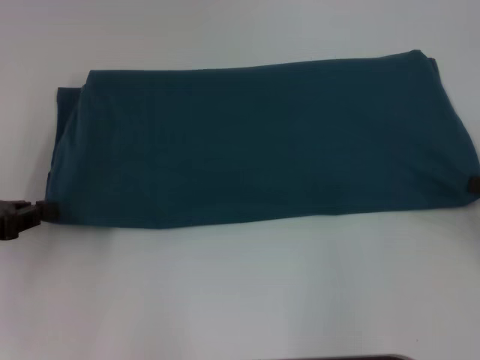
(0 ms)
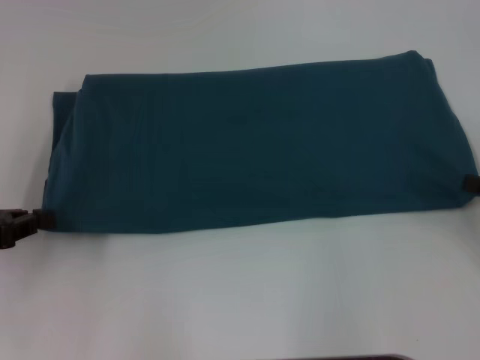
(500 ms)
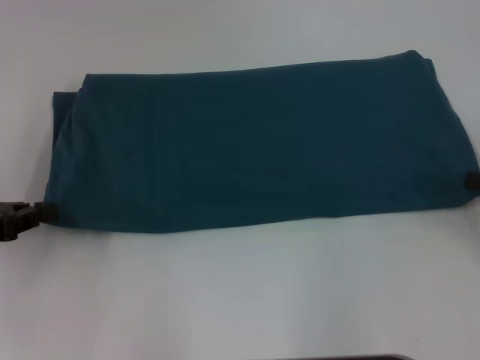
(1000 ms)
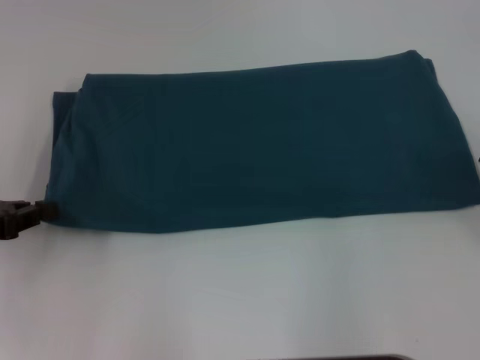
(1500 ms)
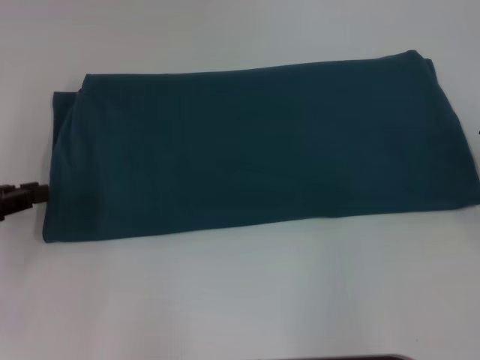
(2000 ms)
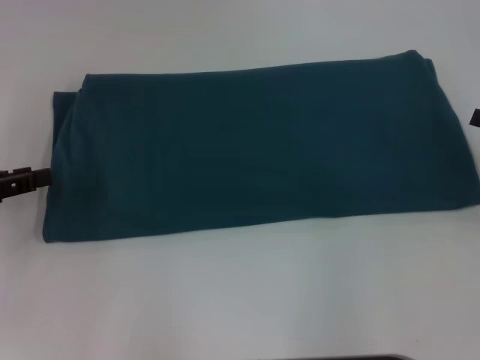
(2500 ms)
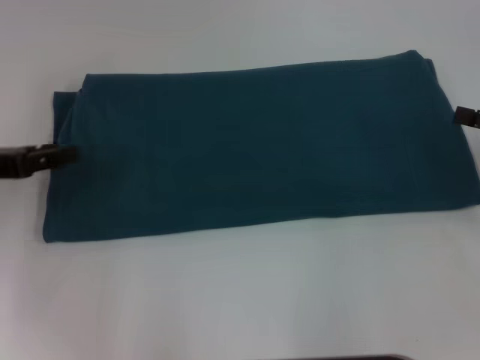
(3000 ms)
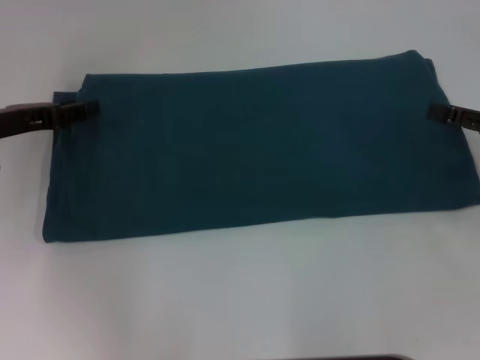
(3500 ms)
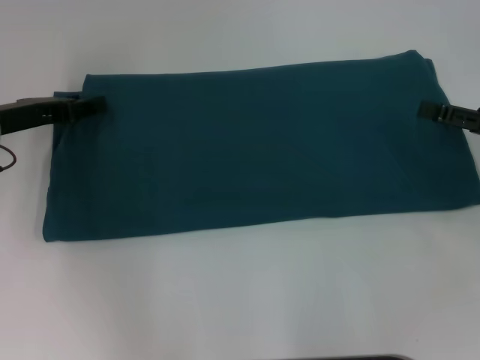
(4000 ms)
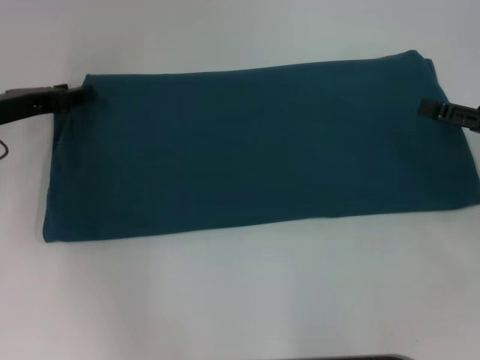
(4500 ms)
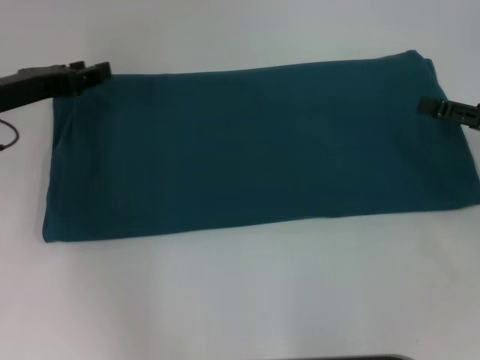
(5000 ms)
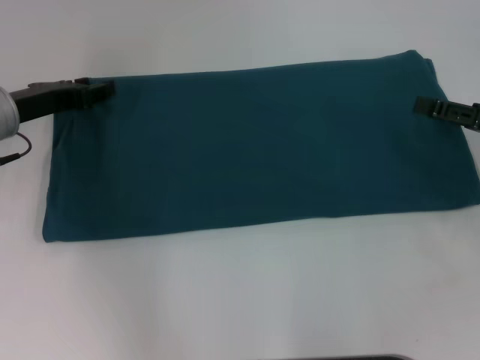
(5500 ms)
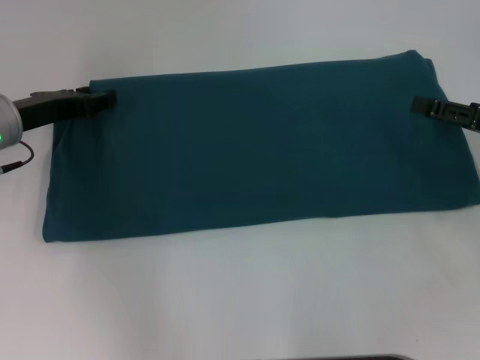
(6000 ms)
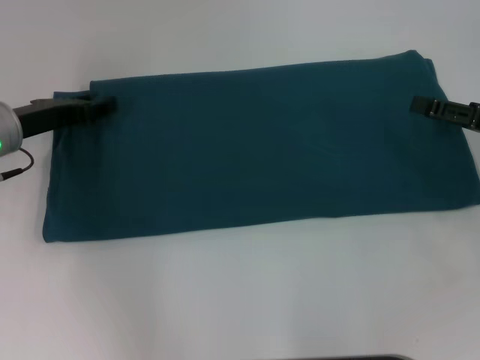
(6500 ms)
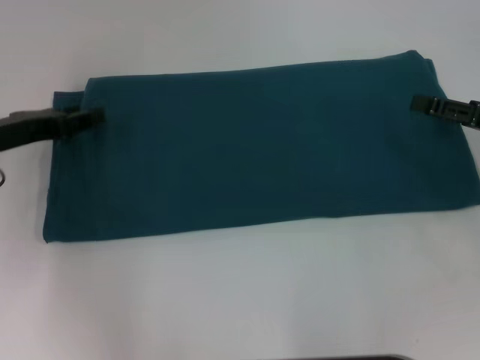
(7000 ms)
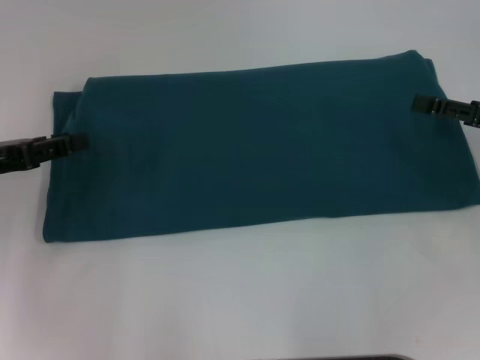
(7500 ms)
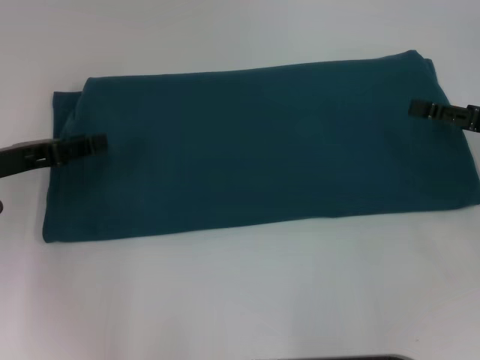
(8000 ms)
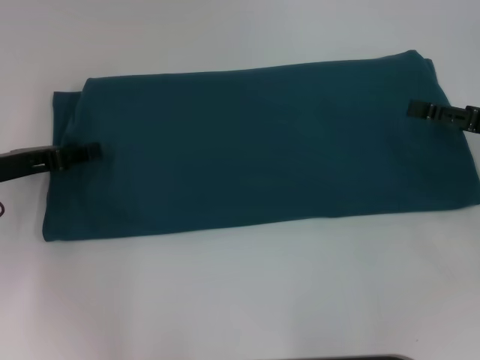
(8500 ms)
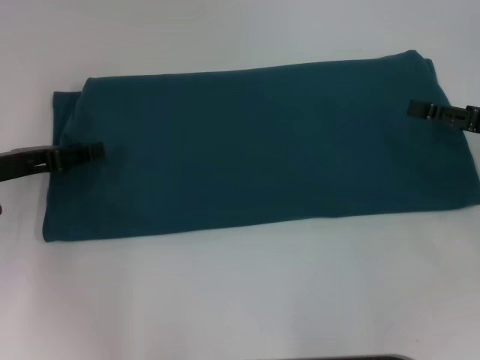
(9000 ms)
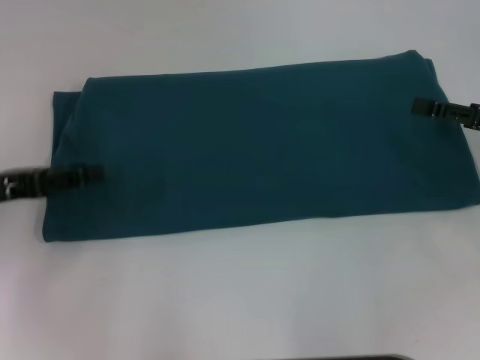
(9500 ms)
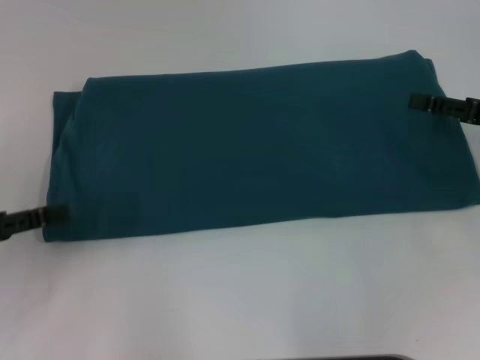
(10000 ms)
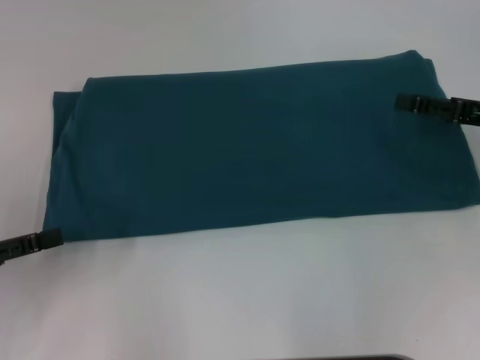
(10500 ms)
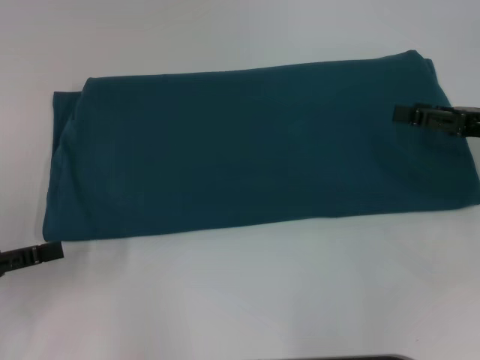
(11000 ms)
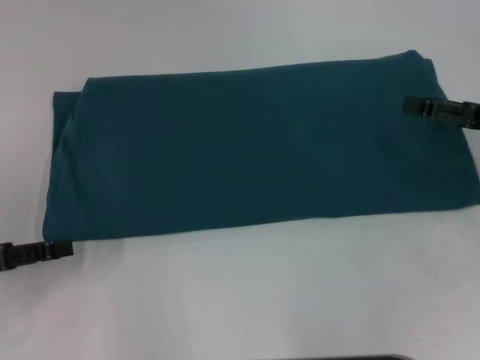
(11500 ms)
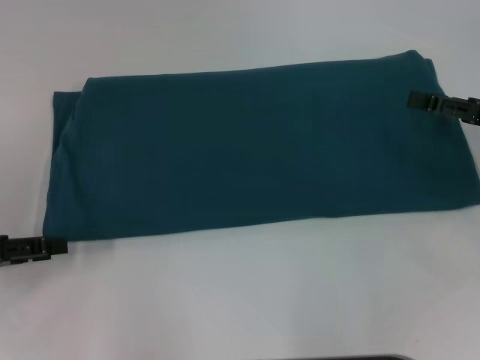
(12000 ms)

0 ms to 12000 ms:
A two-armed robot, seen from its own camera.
Step, 0 ms to 2000 ms: Pull the clothes with your left hand.
Step, 0 ms to 2000 ms: Pull the clothes with your right hand.
0 ms to 2000 ms: The right gripper opens.
2000 ms to 4000 ms: The left gripper goes roughly 15 cm forward and to the right, and opens up.
4000 ms to 6000 ms: The grippers stay close to where they were, moving slightly.
6000 ms to 8000 ms: The left gripper heads backward, covering about 5 cm.
8000 ms to 10000 ms: The left gripper goes about 5 cm backward.
10000 ms to 12000 ms: The grippers stay close to where they were, moving slightly.

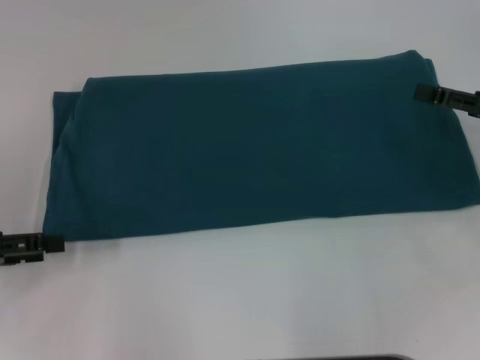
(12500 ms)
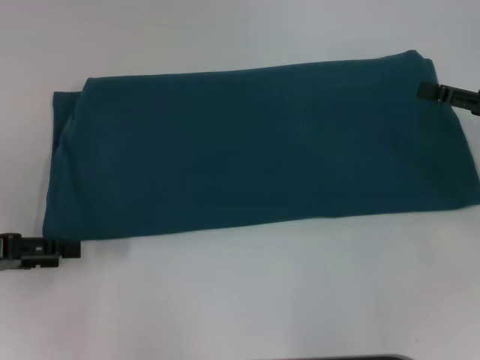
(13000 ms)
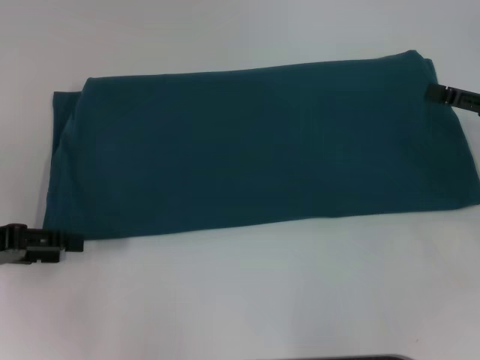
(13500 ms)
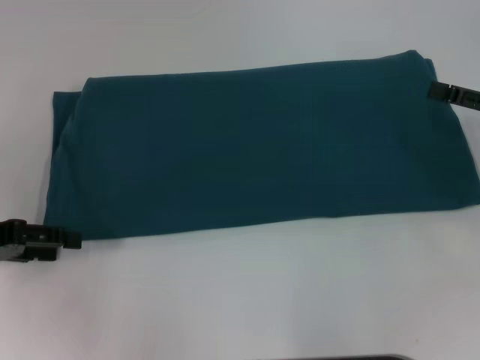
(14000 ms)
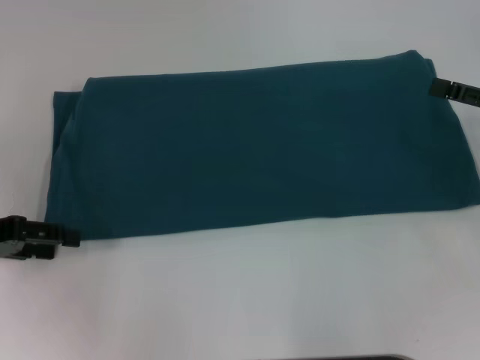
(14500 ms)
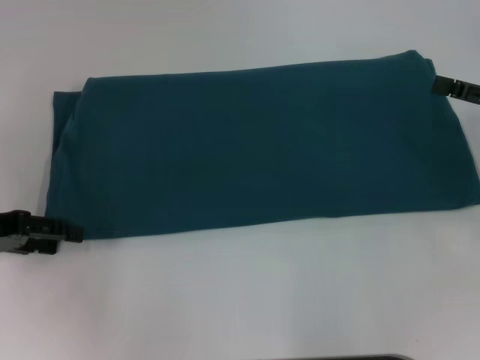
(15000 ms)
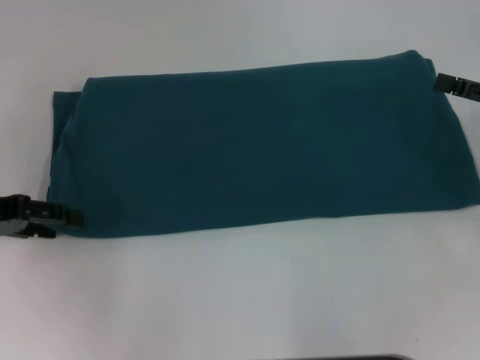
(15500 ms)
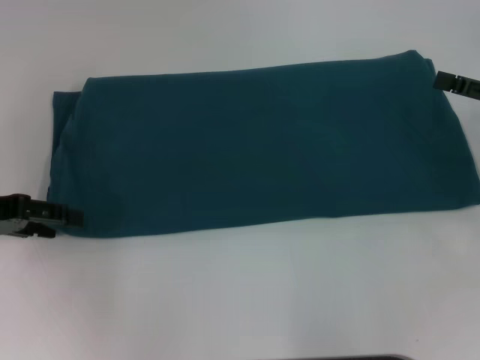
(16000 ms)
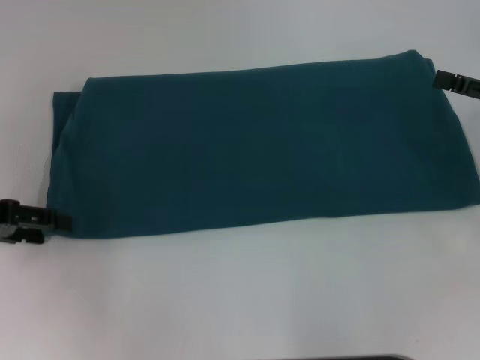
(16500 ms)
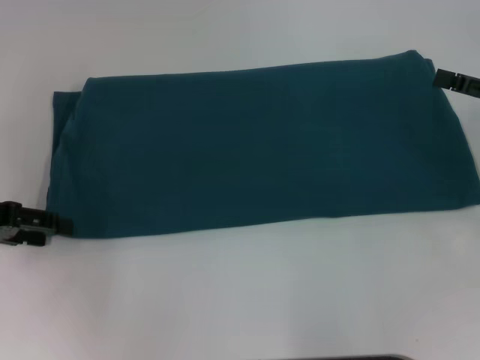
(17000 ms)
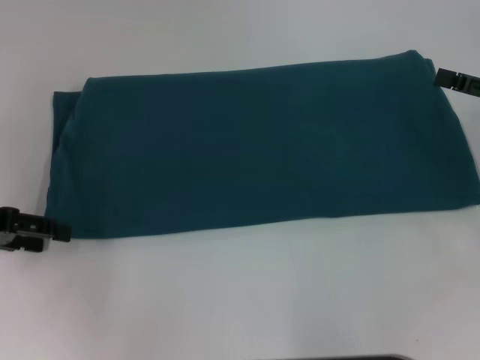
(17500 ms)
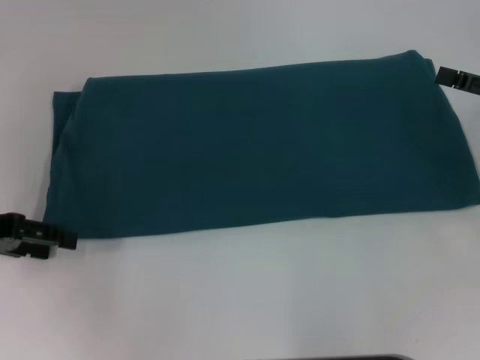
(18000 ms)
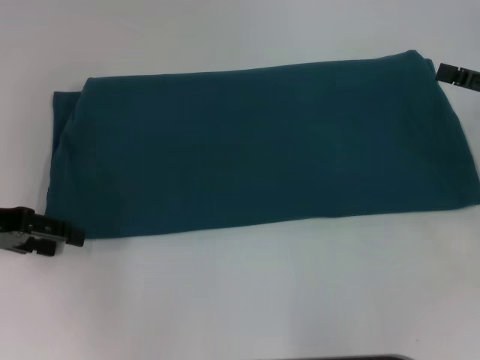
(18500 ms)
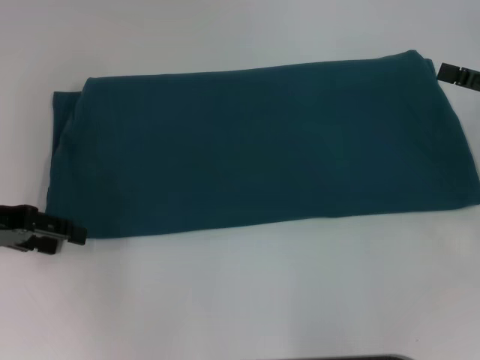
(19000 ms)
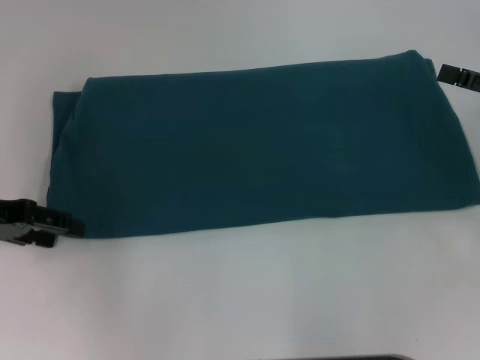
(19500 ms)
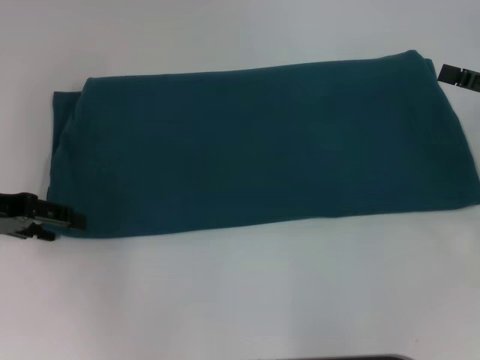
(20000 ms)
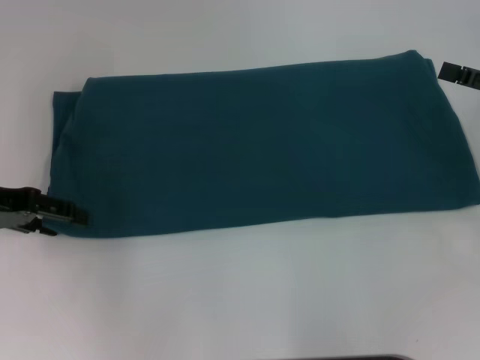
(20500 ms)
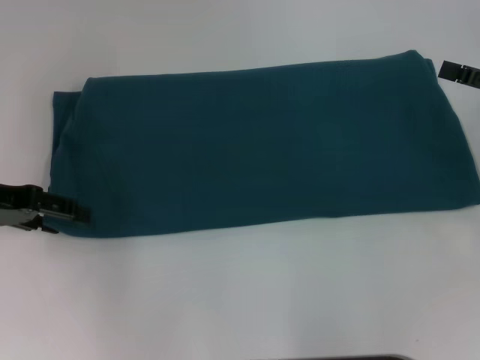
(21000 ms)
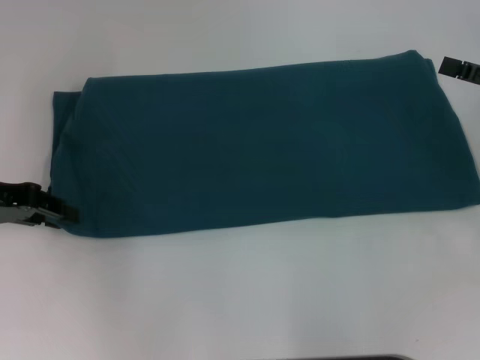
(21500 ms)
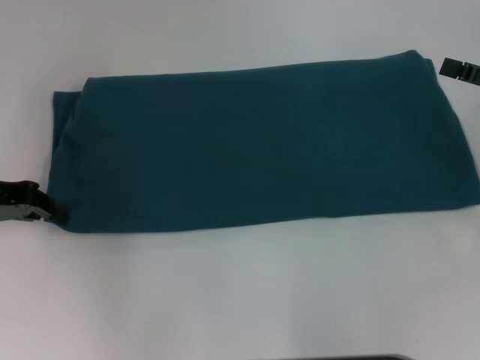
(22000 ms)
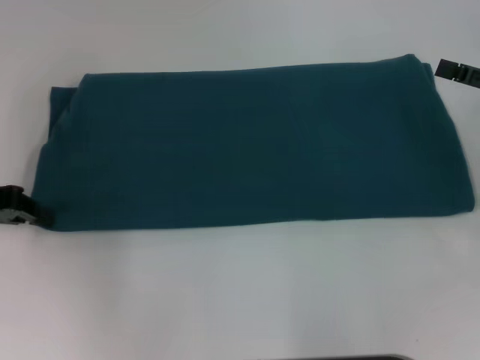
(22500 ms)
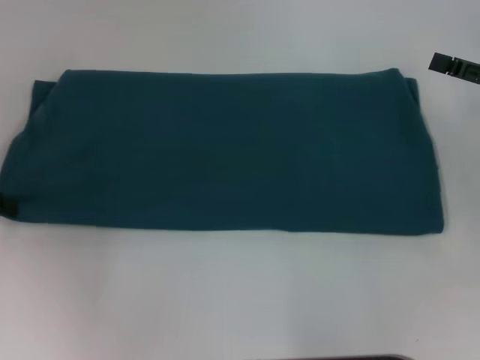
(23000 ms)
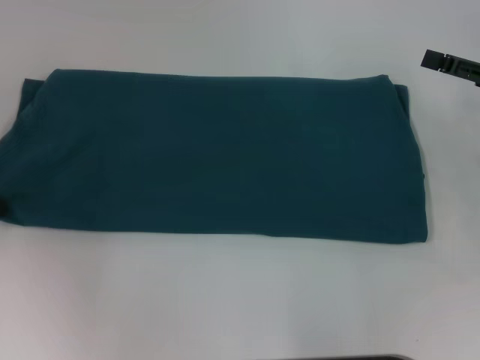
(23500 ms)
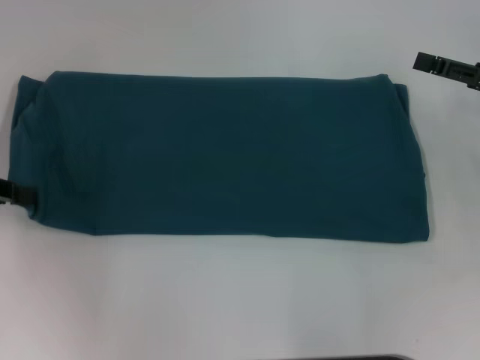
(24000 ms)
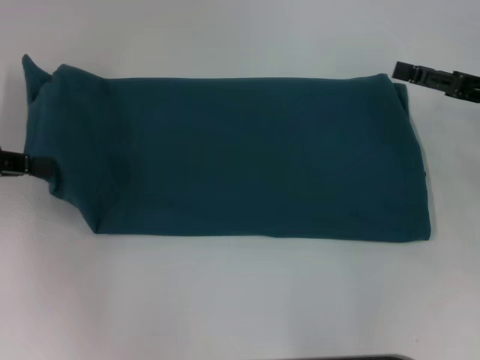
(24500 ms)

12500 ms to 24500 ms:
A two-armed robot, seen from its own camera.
12500 ms to 14500 ms: There are only small adjustments of the grippers.
14500 ms to 20500 ms: There are only small adjustments of the grippers.
20500 ms to 22500 ms: The left gripper closes up.

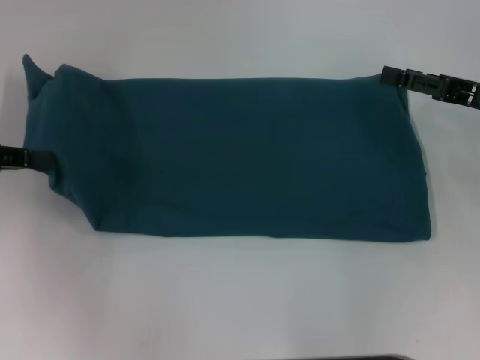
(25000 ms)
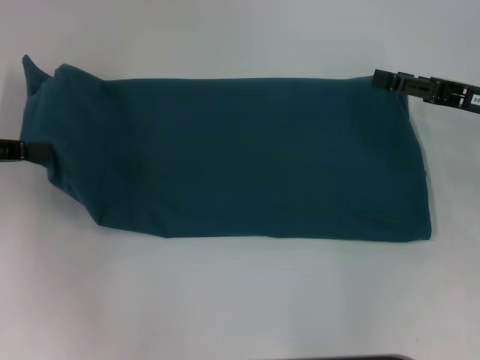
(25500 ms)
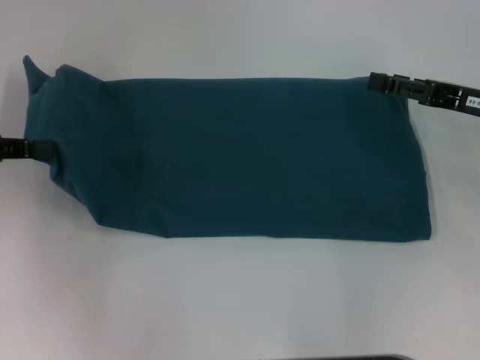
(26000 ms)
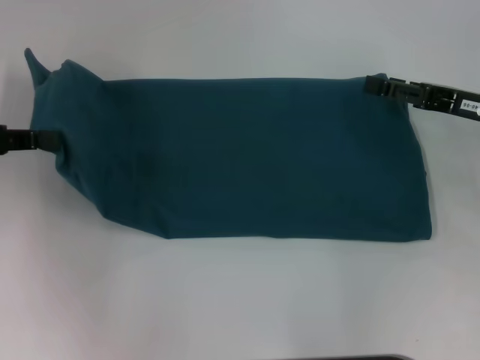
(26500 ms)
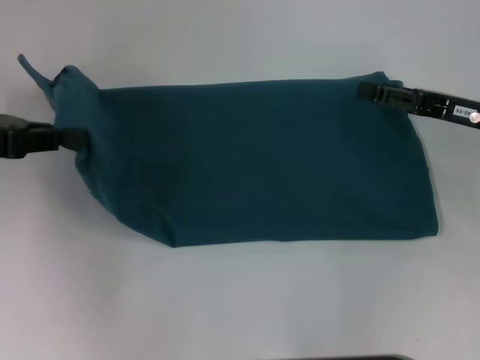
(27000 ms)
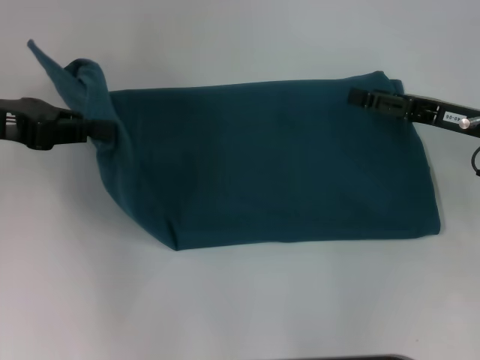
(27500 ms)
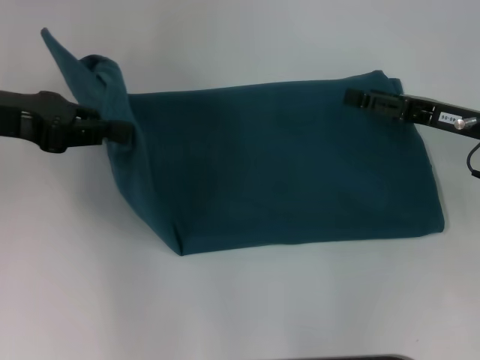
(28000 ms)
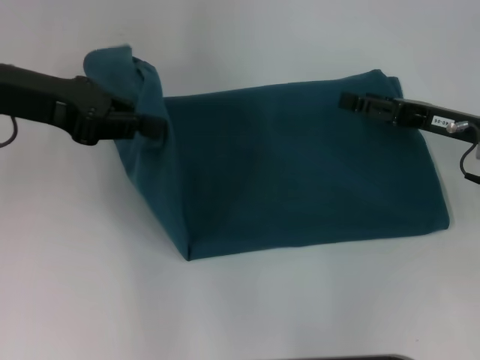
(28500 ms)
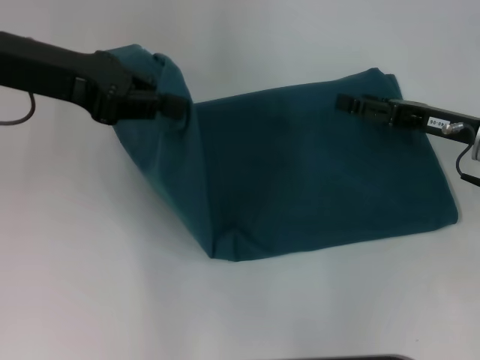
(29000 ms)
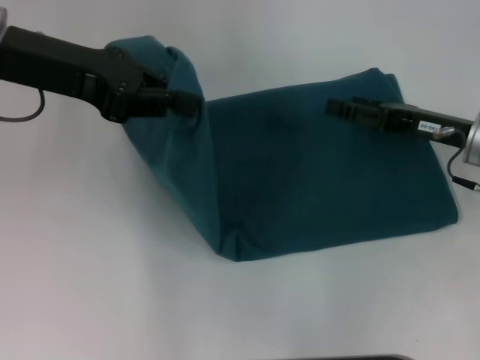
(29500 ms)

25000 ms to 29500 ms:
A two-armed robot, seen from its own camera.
25000 ms to 27000 ms: The grippers stay close to where they were, moving slightly.
27000 ms to 29500 ms: The left gripper goes about 10 cm to the right and upward.
